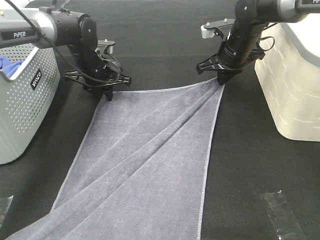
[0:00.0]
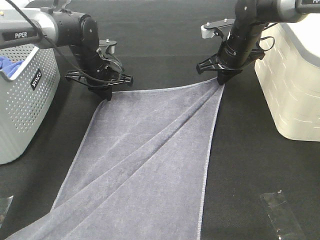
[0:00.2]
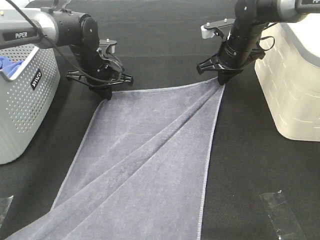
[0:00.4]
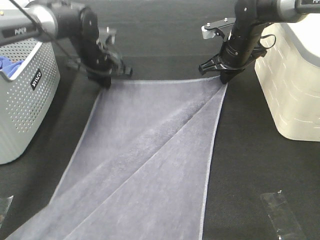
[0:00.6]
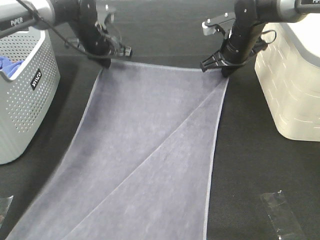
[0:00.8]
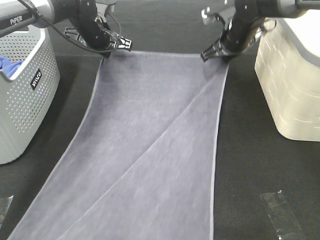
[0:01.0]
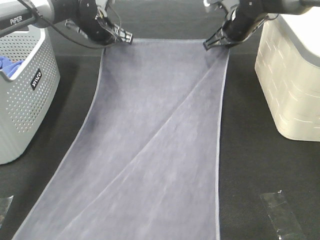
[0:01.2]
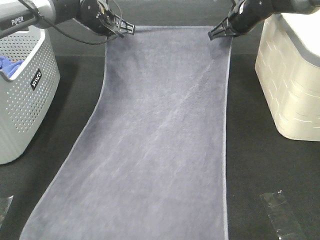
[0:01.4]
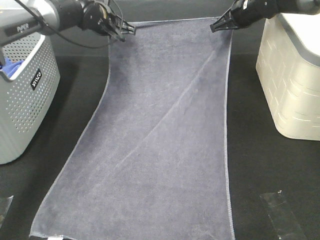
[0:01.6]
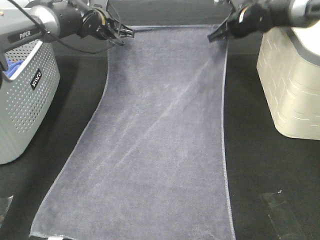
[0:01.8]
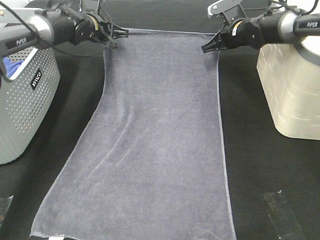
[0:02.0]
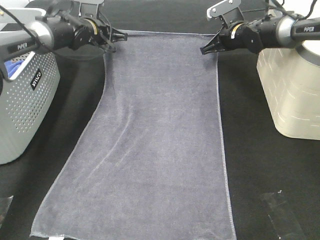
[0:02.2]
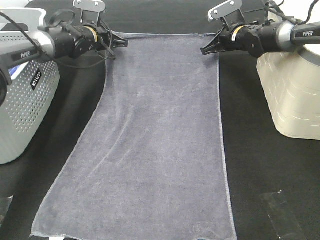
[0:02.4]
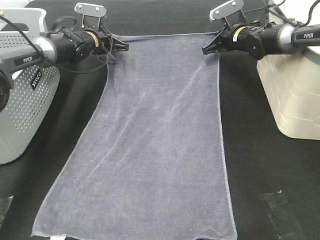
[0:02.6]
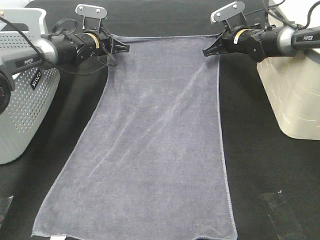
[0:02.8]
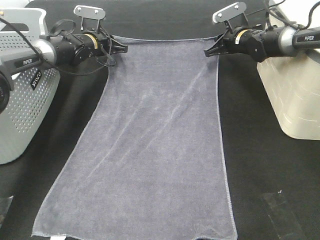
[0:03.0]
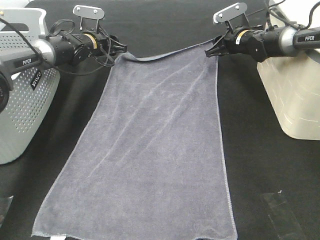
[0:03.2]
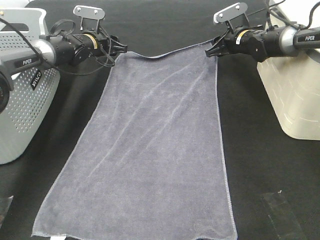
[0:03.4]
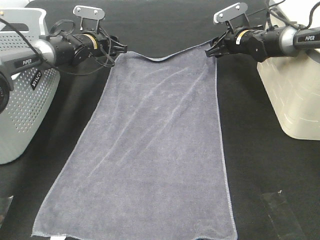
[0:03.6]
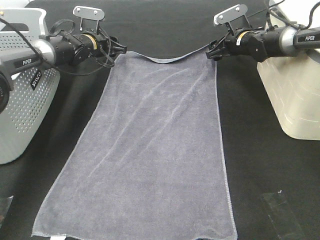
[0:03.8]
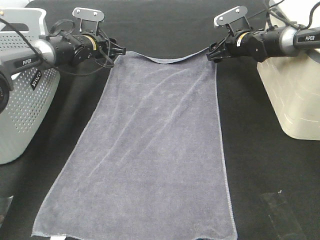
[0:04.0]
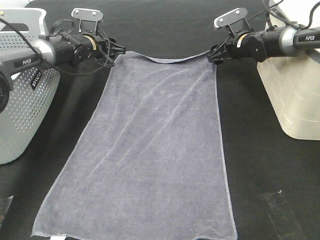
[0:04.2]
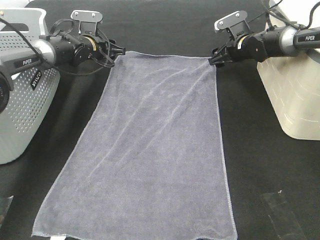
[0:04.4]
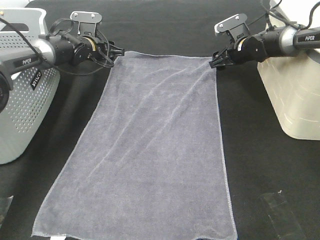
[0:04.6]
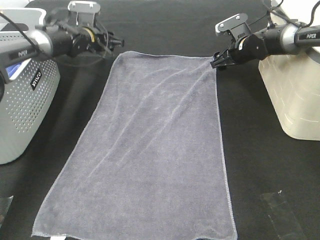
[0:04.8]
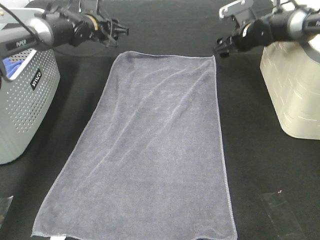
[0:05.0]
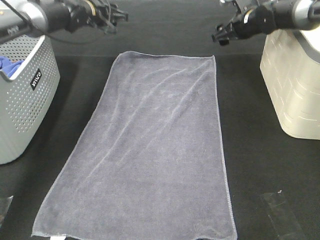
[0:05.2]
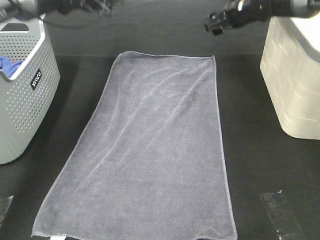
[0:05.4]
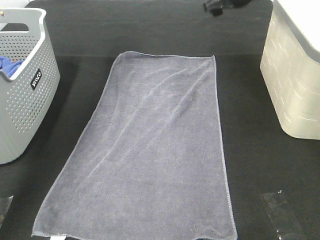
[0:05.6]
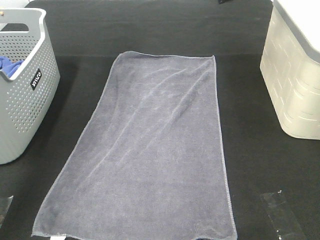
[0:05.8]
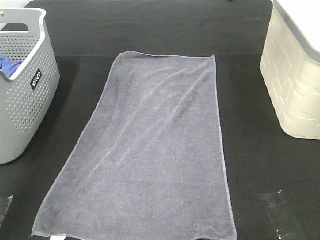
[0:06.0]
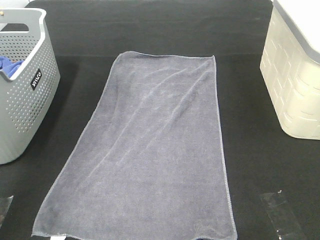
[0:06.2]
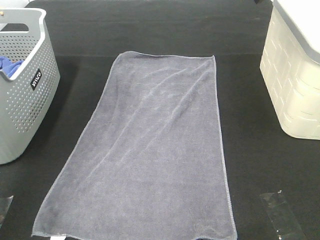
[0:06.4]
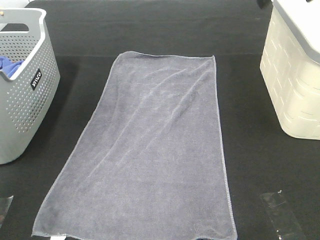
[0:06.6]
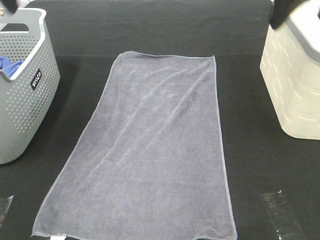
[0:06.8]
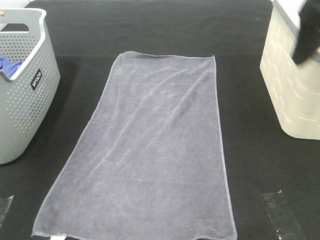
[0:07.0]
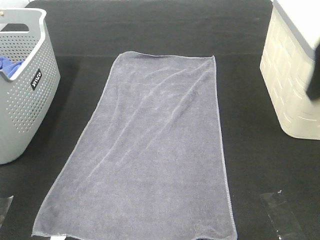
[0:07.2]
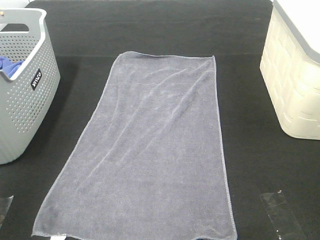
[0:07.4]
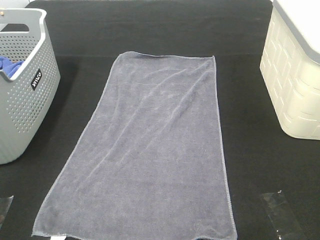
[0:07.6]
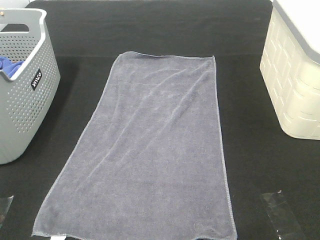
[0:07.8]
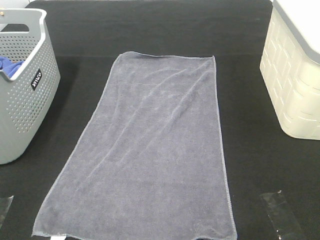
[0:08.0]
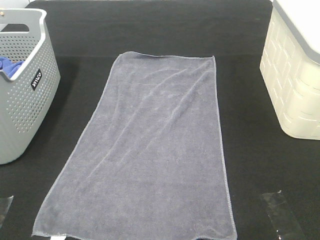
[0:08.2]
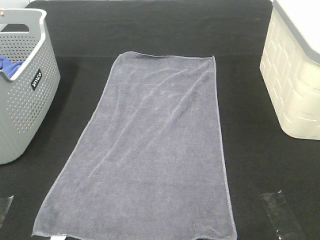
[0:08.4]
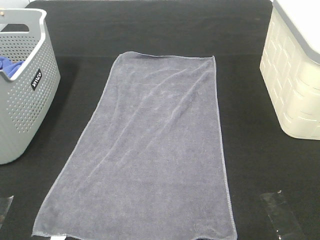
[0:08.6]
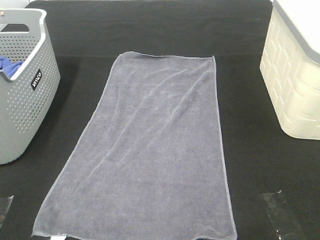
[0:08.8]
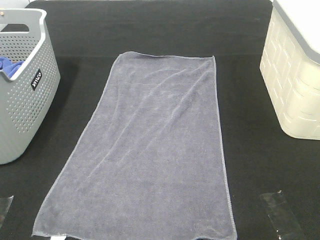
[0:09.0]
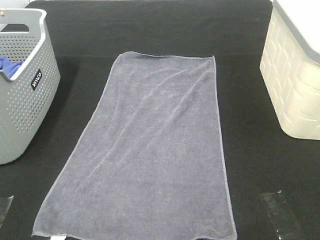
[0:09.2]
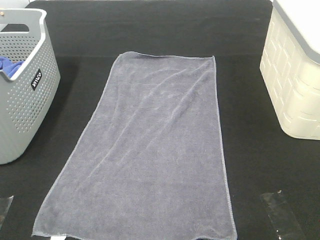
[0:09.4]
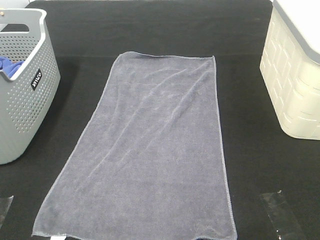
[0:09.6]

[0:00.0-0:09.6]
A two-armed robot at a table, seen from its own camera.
Task of the whole recording: Remove the towel and place it.
0:00.0 to 0:01.6: The right gripper heads forward, covering roughly 5 cm. Meanwhile the left gripper moves upward and forward, about 10 cm.
0:01.6 to 0:03.2: Both grippers move downward, some 10 cm. The left gripper opens up, while the right gripper opens.
0:03.2 to 0:04.8: The right gripper opens.
0:04.8 to 0:06.4: The grippers both shift upward and backward by about 35 cm.
0:06.4 to 0:08.0: The two grippers go approximately 35 cm backward.

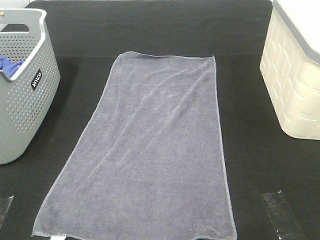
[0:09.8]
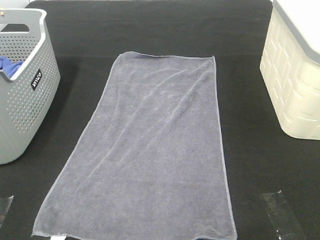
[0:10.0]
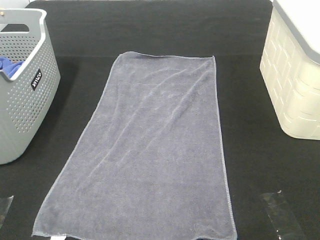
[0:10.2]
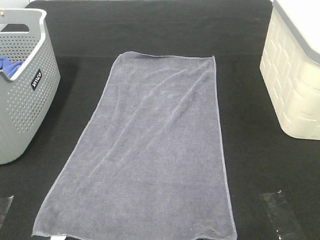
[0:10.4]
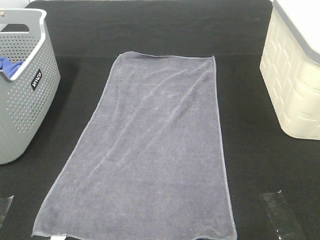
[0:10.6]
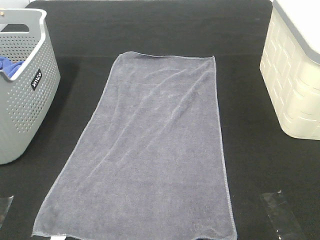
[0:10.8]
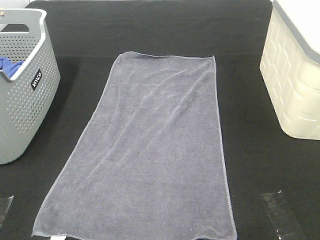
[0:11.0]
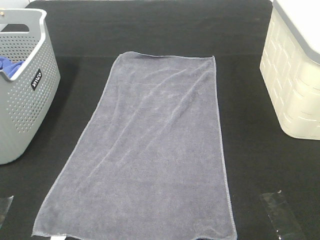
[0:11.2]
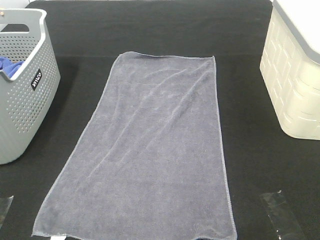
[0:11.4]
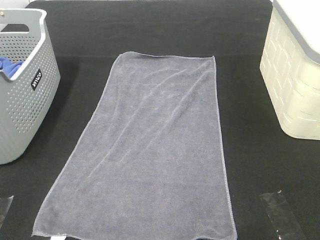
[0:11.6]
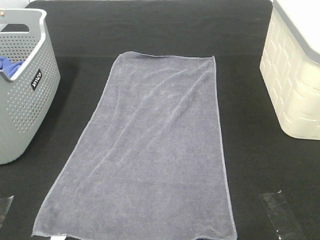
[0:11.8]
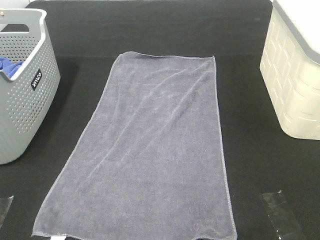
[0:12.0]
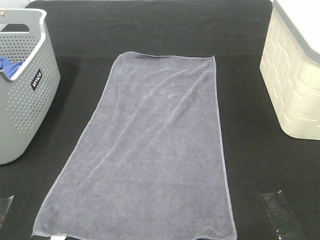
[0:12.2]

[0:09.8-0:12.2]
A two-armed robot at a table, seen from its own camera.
Task of the whole recording: Remove the towel and place it.
0:11.0 to 0:12.2: Both grippers stay about where they are.

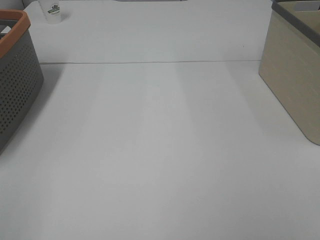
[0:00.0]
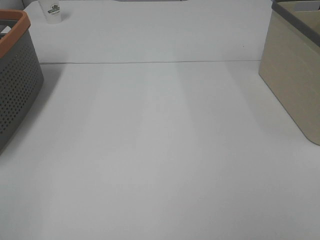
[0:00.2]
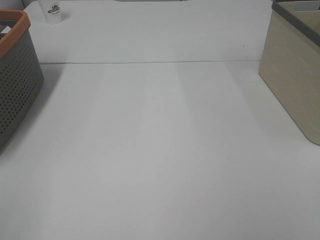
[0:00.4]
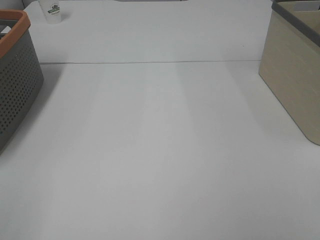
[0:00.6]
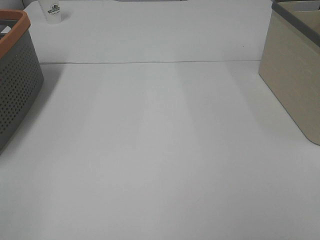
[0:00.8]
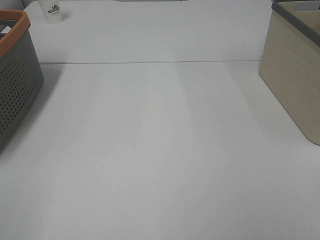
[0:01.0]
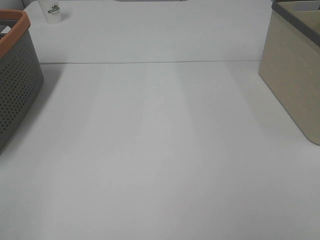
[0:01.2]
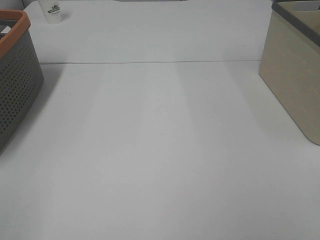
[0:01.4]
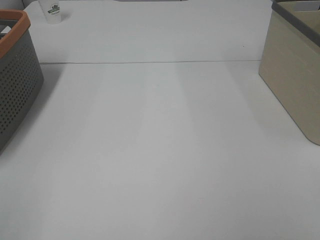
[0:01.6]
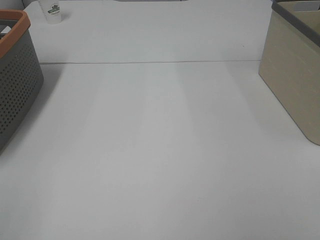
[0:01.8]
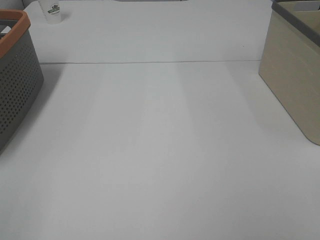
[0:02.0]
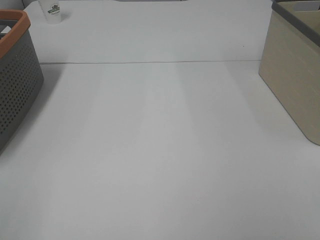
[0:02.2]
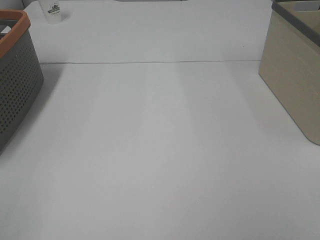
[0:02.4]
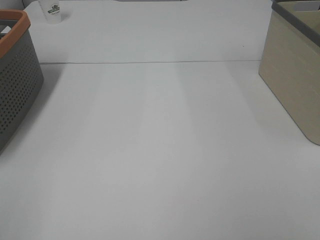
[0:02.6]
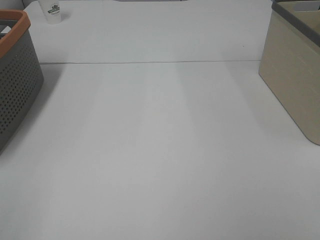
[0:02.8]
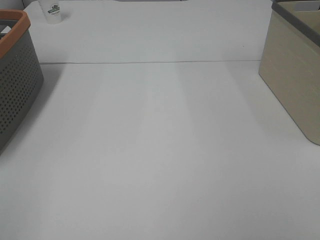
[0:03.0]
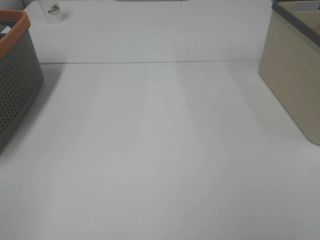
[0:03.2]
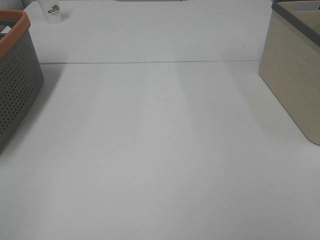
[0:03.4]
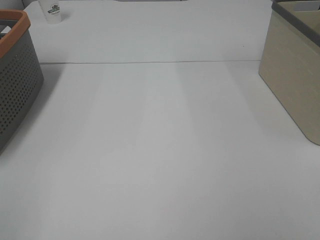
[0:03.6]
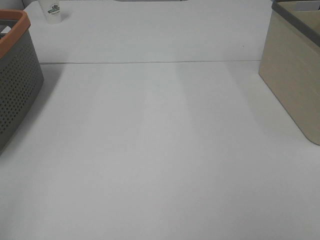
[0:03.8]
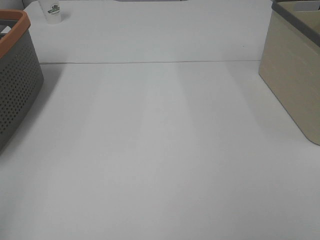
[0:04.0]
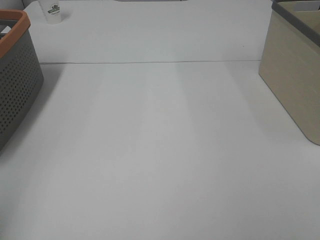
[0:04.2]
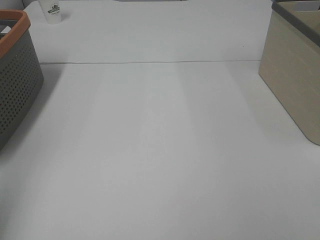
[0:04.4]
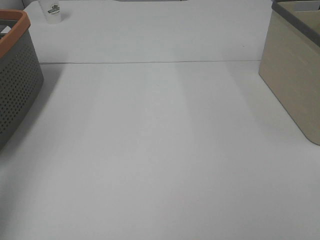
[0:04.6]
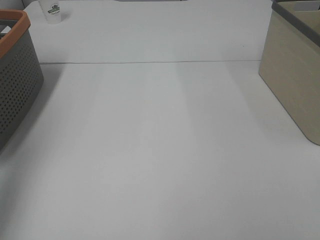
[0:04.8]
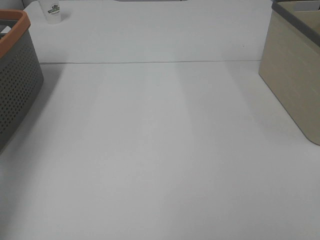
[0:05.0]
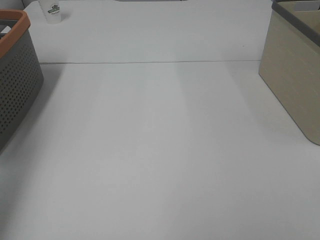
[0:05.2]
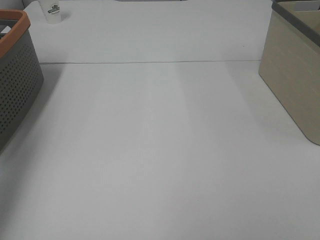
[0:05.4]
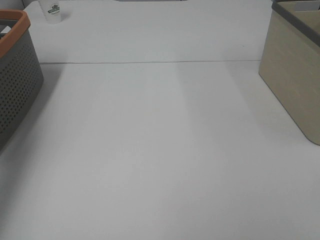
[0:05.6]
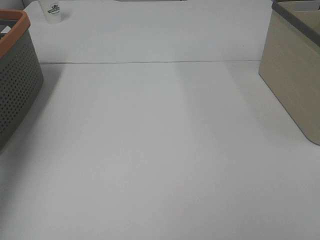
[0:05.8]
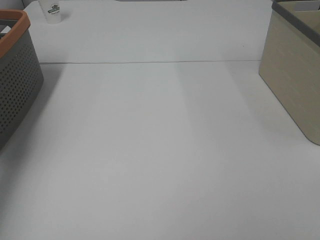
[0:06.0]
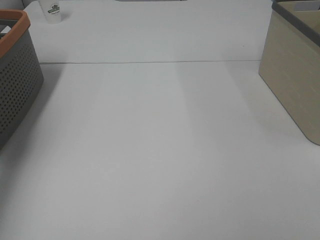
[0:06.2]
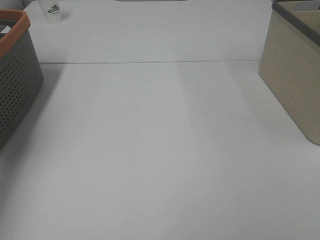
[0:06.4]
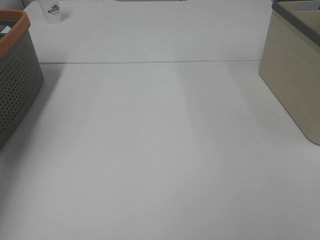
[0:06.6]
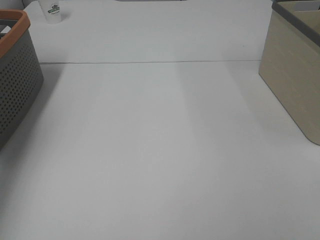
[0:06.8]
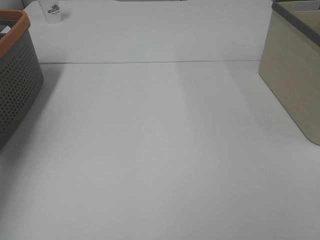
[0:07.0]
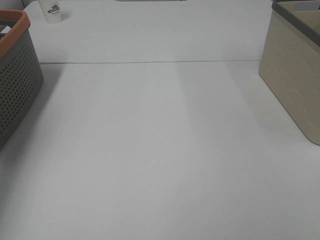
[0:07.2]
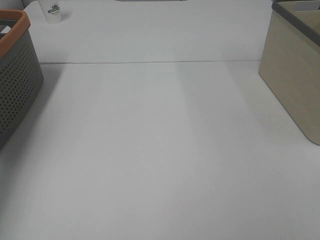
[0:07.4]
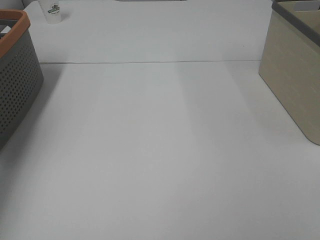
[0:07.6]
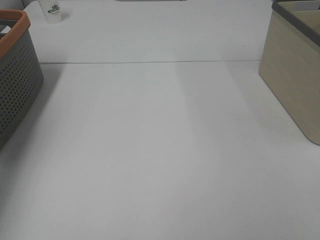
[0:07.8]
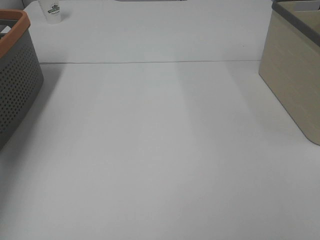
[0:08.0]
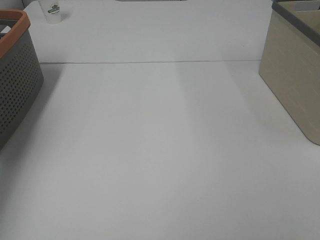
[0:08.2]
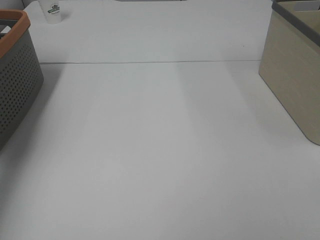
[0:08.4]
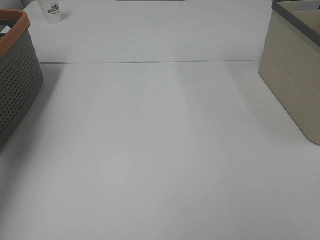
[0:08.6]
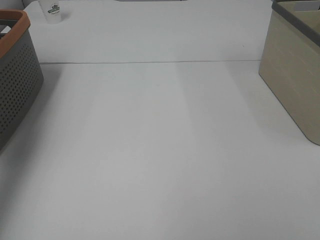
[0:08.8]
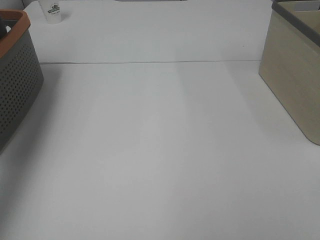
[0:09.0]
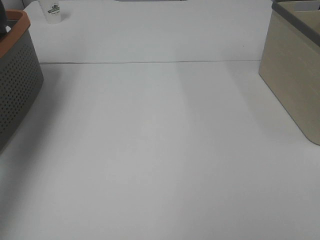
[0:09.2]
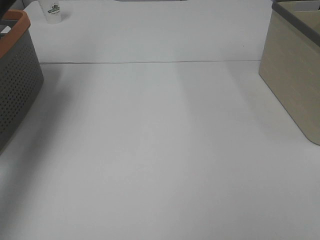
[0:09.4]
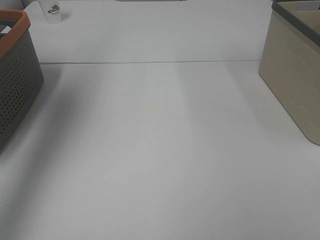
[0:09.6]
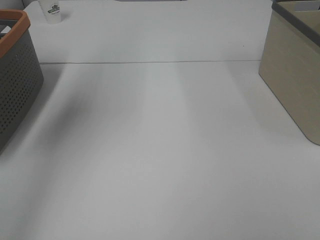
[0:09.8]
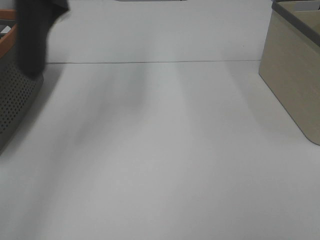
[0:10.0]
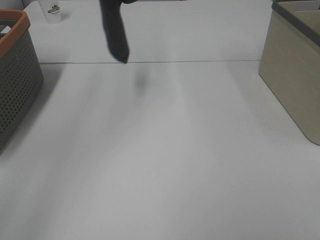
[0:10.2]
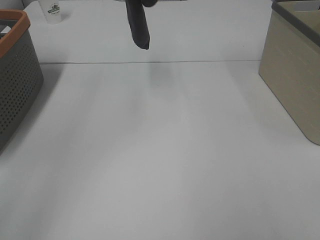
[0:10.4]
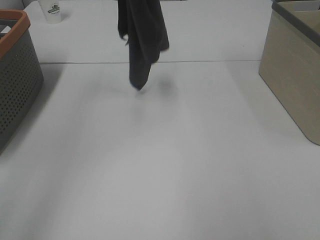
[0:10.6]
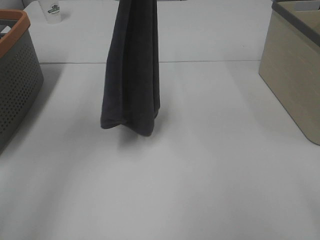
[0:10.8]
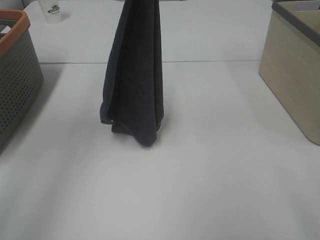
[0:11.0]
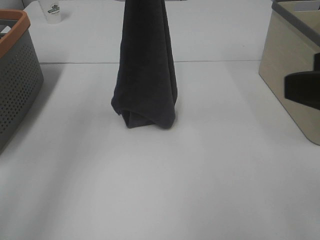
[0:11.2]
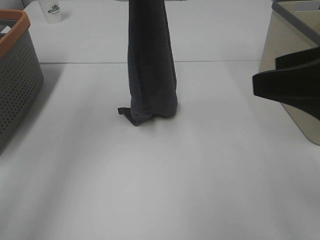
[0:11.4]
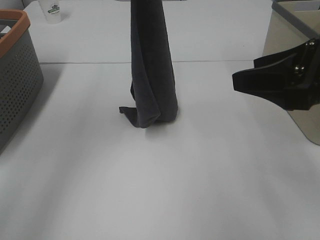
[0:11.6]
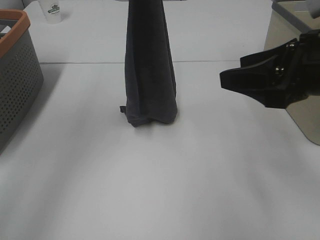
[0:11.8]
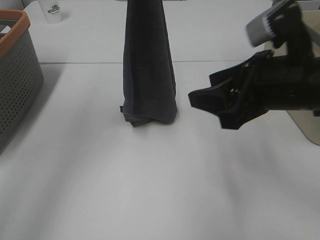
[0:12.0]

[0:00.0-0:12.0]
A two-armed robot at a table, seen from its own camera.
Task of the whole recording: Remove the towel and place it.
Step, 0:09.4 to 0:12.0: Right hand: grab a corner of the grey towel and straighten it.
0:00.0 to 0:03.0: Both grippers stay about where they are.
0:03.0 to 0:04.4: The left gripper travels forward and upward by about 10 cm.
0:04.4 to 0:06.0: The left gripper moves forward, roughly 30 cm.
0:07.6 to 0:09.0: The left gripper goes about 25 cm upward, and closes up.
0:09.0 to 0:10.4: The left gripper heads to the right, covering some 20 cm.
0:10.4 to 0:12.0: The right gripper is displaced forward and to the left by approximately 25 cm, while the left gripper travels downward by roughly 10 cm.
